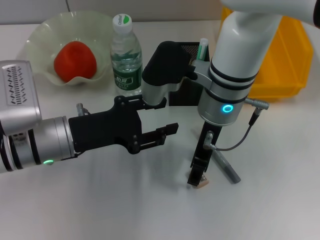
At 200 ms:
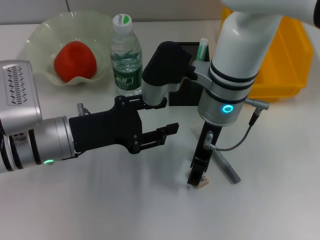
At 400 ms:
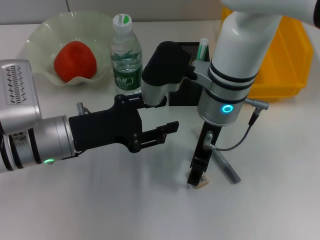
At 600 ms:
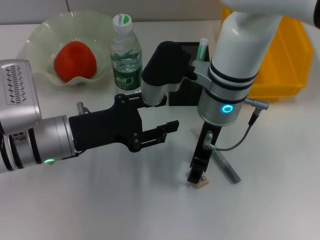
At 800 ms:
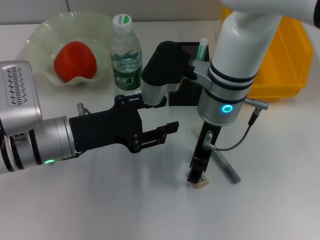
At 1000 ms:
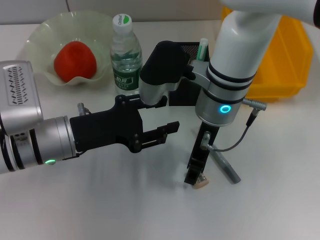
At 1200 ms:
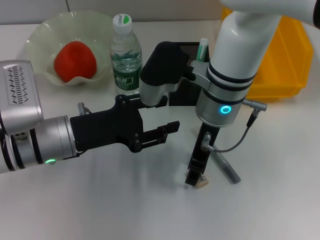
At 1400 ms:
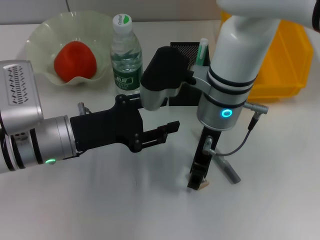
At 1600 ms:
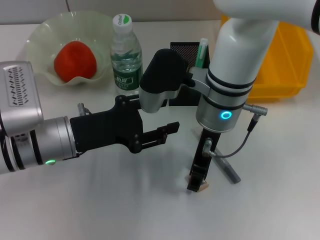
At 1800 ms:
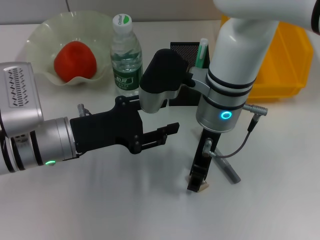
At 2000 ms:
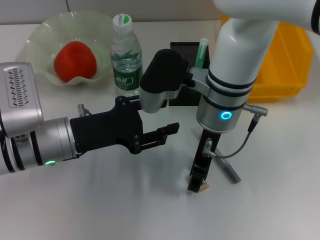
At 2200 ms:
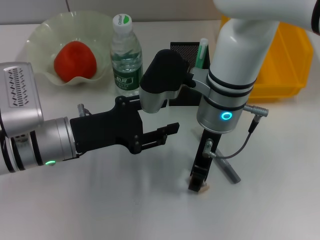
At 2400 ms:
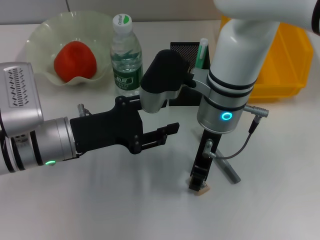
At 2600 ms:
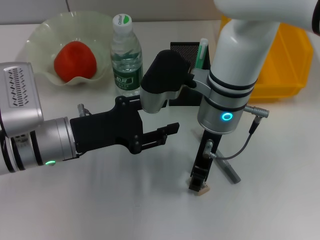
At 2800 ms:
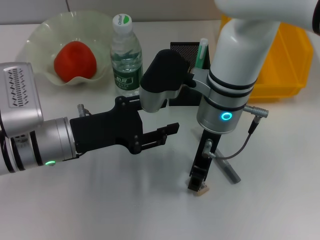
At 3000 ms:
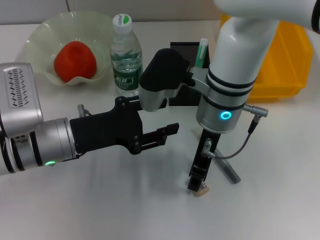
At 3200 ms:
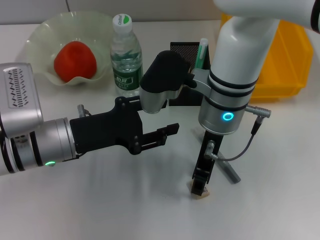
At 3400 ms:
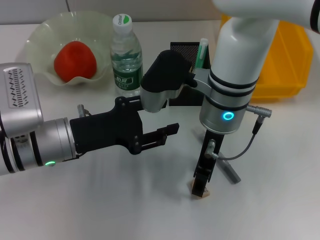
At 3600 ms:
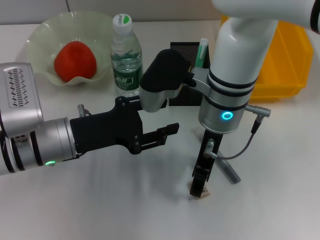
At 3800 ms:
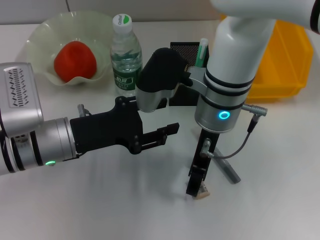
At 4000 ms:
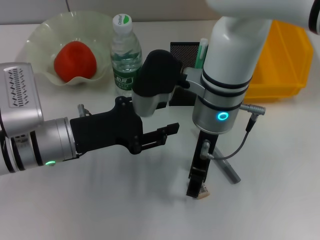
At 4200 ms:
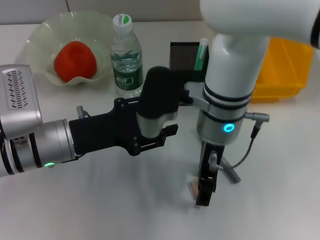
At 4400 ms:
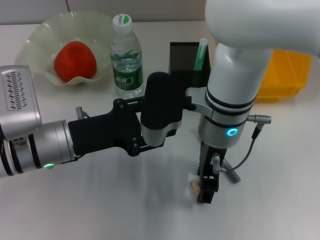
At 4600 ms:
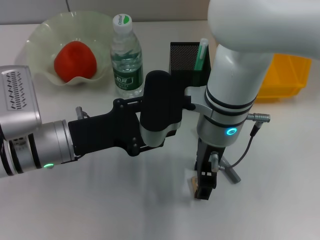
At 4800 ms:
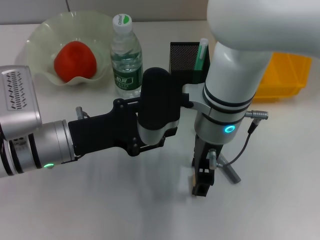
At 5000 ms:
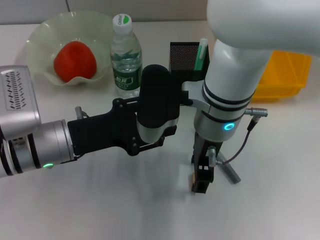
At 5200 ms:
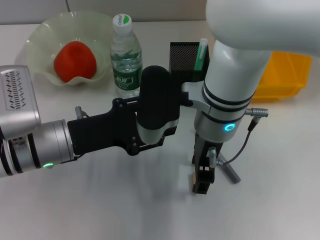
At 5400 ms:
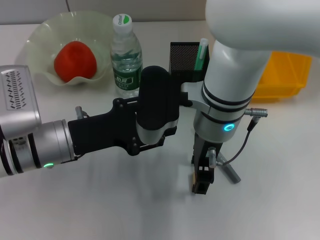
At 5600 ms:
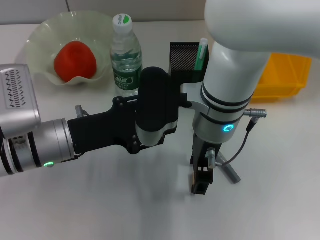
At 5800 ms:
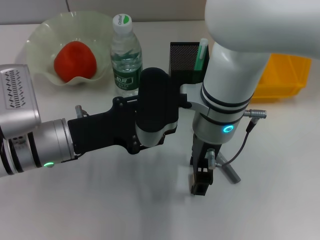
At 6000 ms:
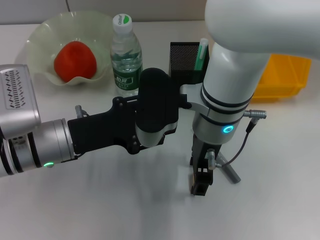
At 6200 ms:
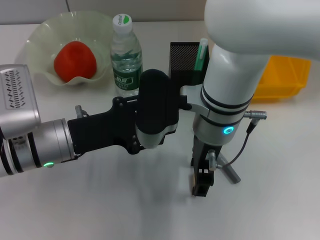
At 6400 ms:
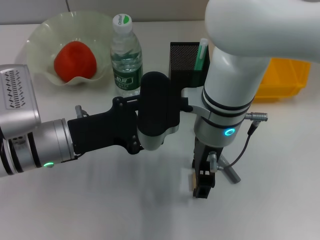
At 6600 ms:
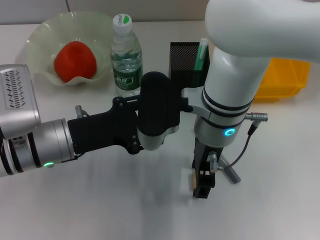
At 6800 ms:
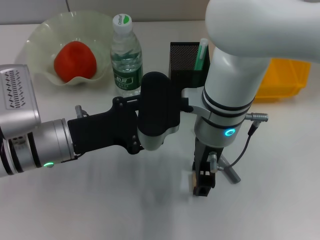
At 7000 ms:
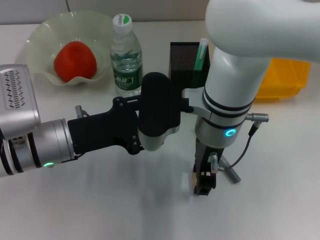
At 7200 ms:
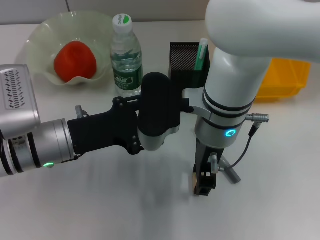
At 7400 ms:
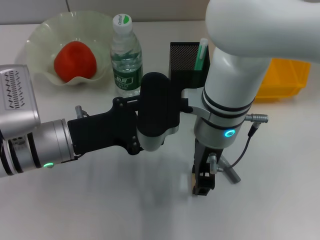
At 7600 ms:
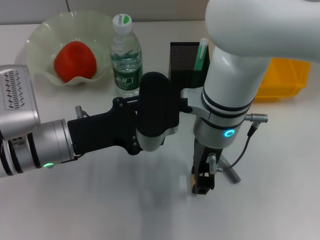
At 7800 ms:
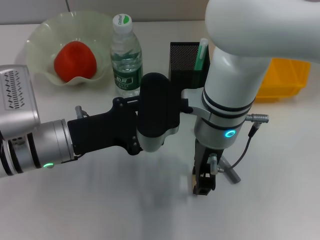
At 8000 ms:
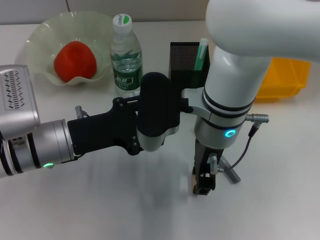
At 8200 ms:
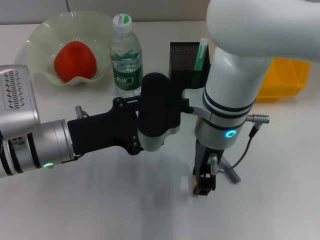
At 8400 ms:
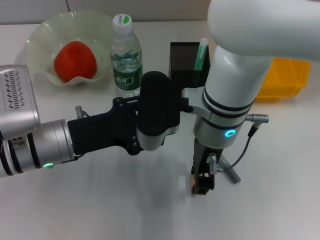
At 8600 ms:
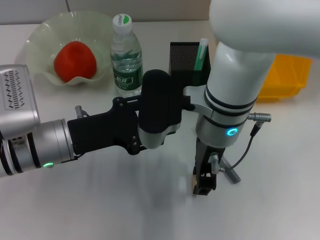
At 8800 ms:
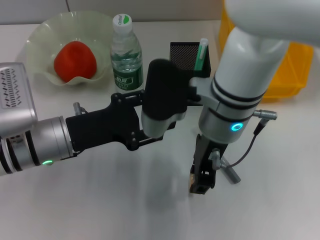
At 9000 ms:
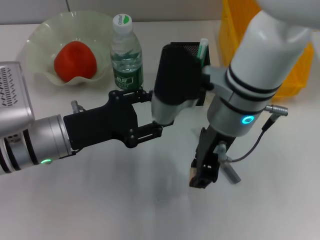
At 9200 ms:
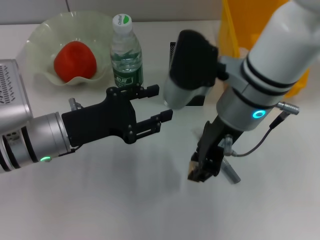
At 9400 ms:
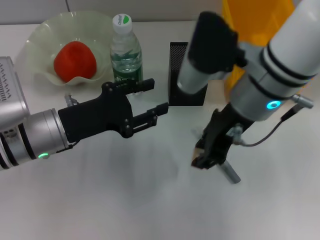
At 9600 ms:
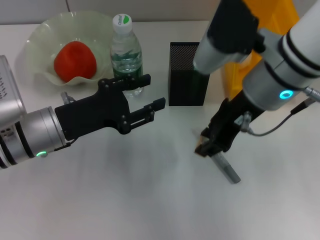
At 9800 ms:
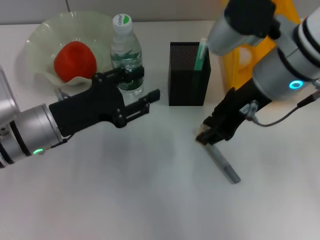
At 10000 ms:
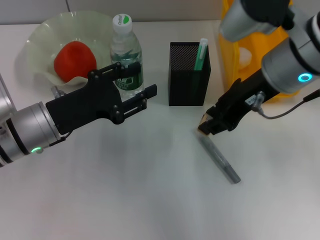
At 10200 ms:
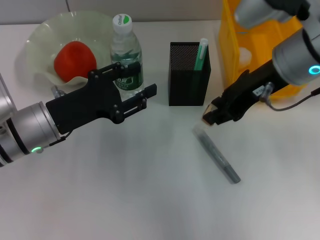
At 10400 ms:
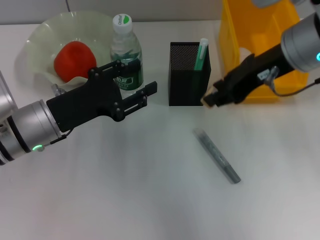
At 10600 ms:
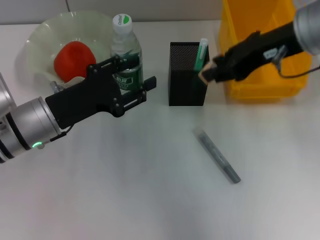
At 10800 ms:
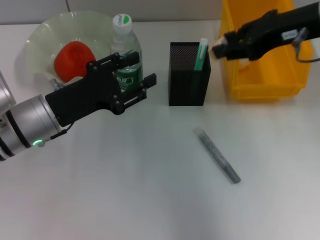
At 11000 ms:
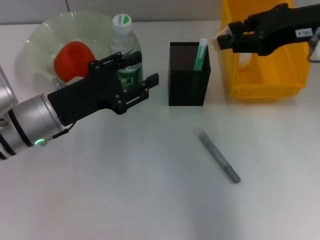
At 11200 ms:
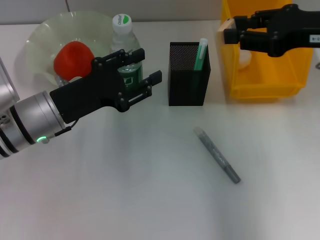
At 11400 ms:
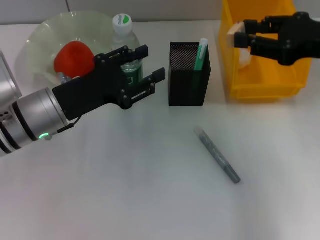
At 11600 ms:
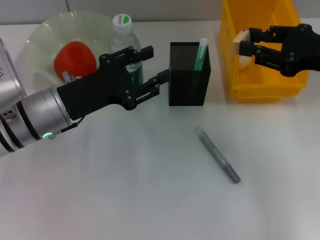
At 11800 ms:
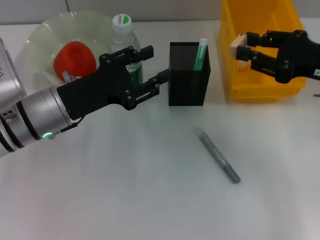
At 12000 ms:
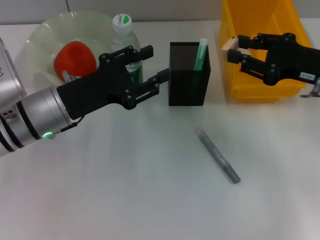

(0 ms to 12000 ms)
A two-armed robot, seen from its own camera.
Step, 0 ms - 8000 ms: Grab the eraser with the right hand.
0 ms - 3000 ms: Both grippers stay about where they are.
3000 ms - 4400 ms: The right gripper opens up.
4400 ms - 6000 ms: The grippers make only small movements.
6000 ms - 7600 ms: The right gripper closes.
9000 ms - 10400 ms: The right gripper moves to the right and upward, about 10 cm.
10400 ms - 12000 ms: The right gripper moves to the right and downward, about 15 cm.

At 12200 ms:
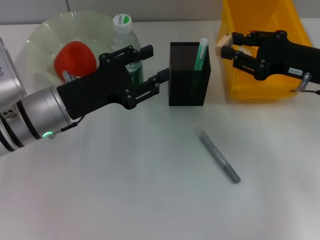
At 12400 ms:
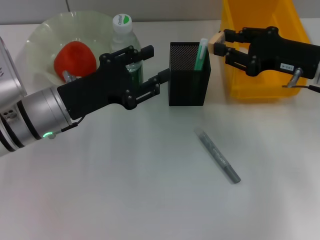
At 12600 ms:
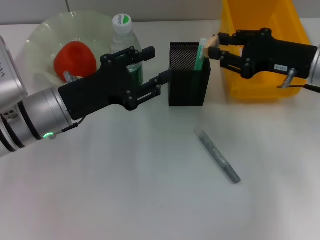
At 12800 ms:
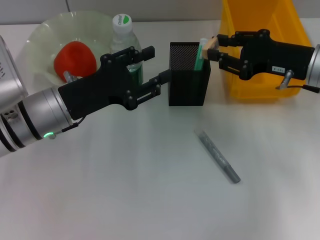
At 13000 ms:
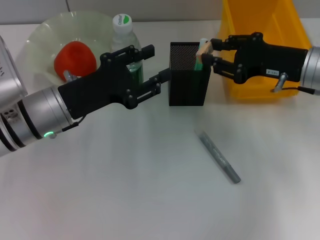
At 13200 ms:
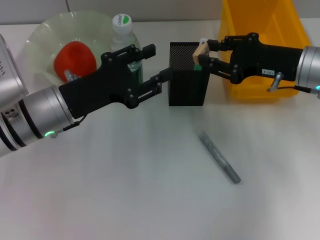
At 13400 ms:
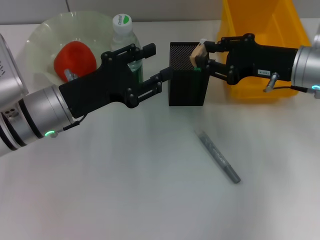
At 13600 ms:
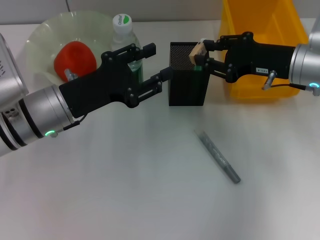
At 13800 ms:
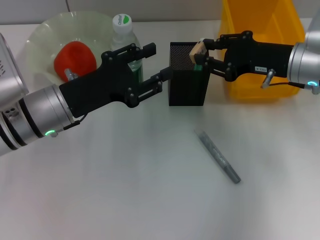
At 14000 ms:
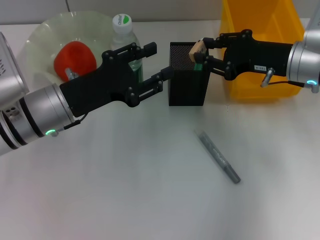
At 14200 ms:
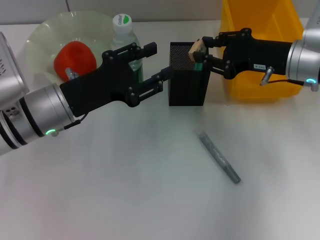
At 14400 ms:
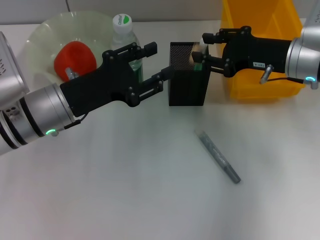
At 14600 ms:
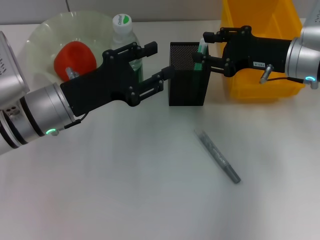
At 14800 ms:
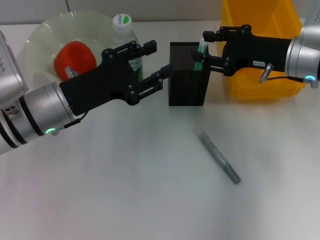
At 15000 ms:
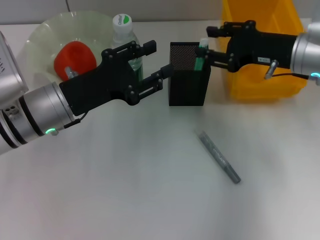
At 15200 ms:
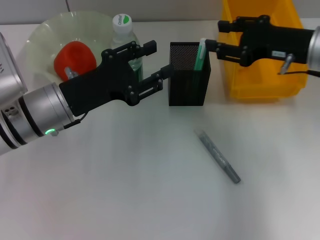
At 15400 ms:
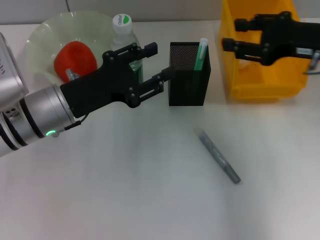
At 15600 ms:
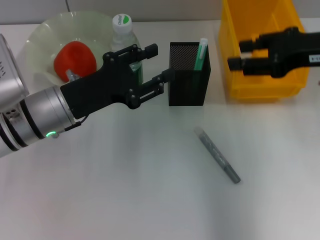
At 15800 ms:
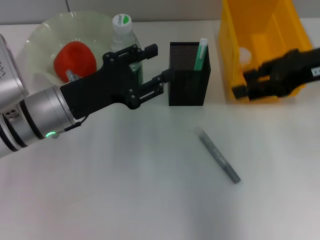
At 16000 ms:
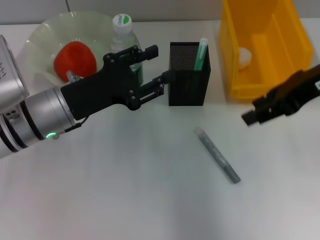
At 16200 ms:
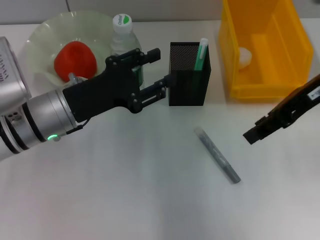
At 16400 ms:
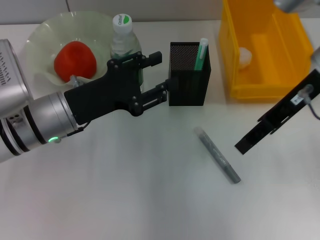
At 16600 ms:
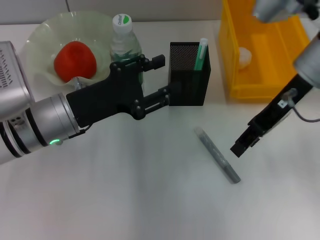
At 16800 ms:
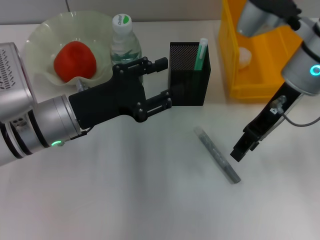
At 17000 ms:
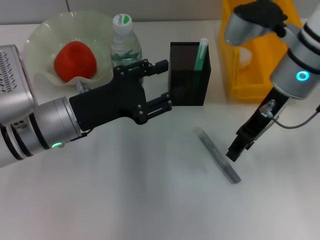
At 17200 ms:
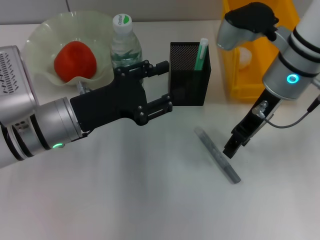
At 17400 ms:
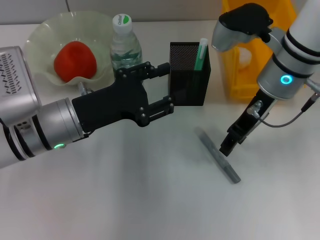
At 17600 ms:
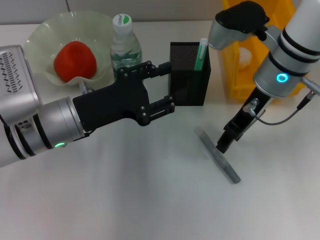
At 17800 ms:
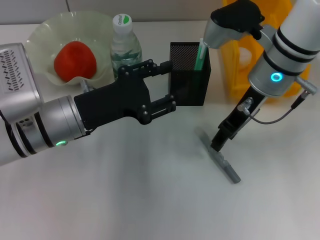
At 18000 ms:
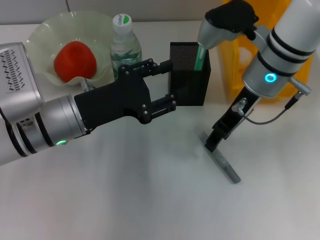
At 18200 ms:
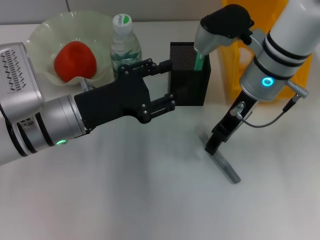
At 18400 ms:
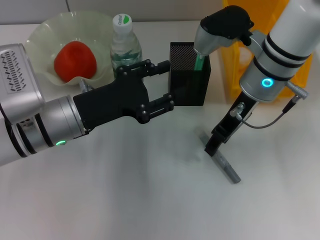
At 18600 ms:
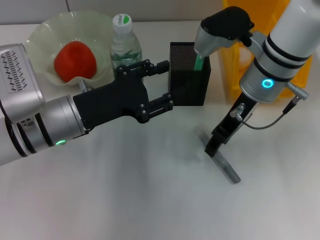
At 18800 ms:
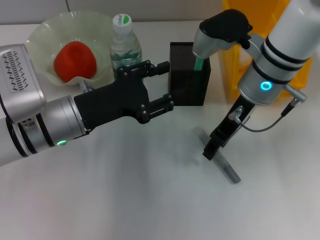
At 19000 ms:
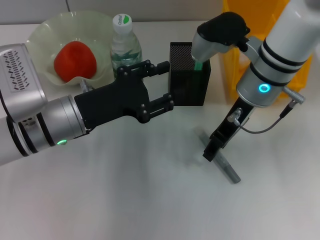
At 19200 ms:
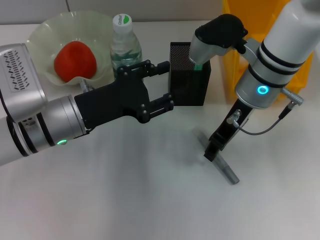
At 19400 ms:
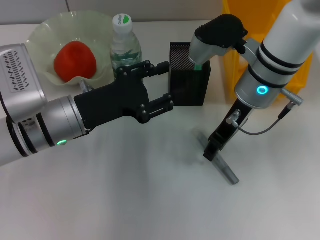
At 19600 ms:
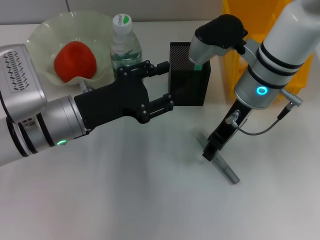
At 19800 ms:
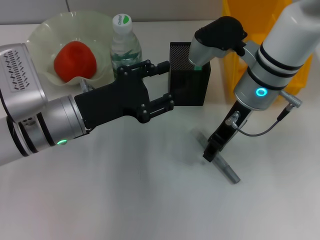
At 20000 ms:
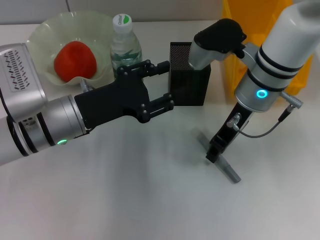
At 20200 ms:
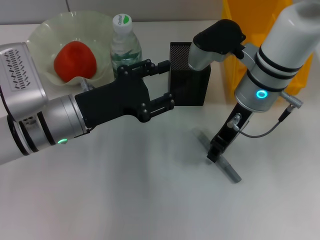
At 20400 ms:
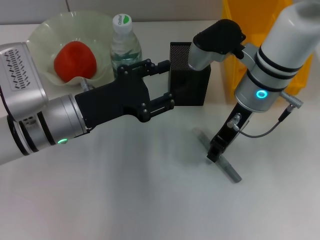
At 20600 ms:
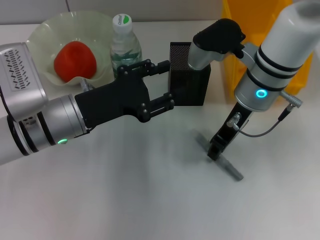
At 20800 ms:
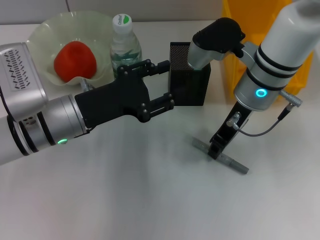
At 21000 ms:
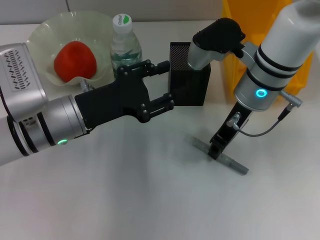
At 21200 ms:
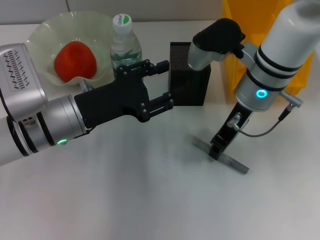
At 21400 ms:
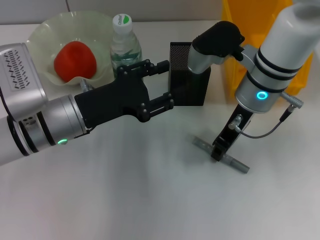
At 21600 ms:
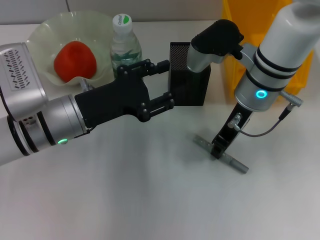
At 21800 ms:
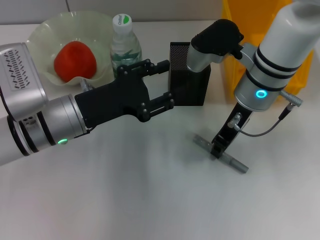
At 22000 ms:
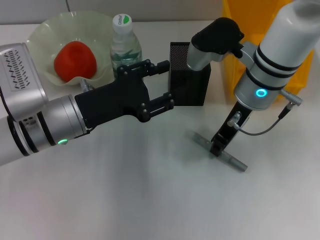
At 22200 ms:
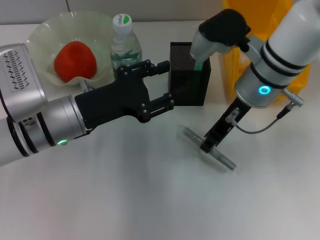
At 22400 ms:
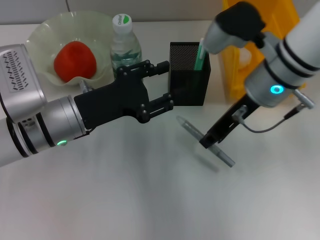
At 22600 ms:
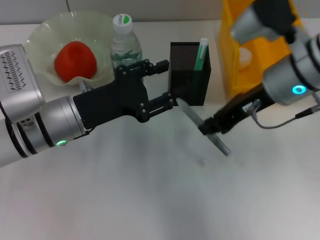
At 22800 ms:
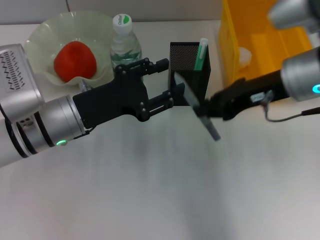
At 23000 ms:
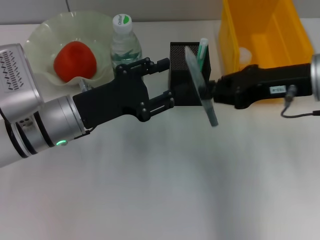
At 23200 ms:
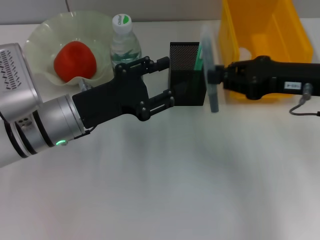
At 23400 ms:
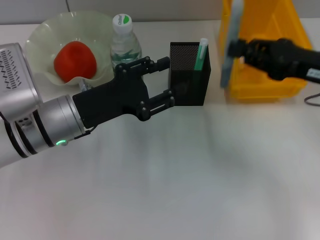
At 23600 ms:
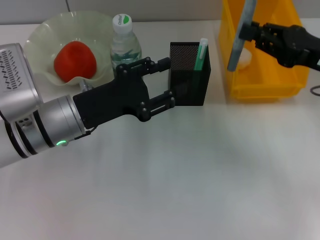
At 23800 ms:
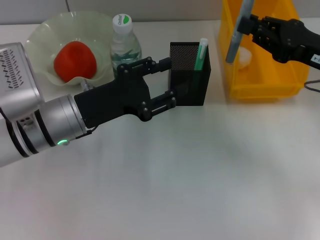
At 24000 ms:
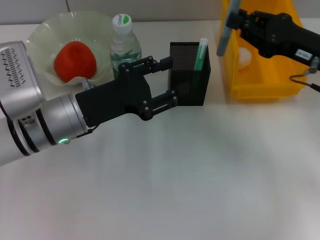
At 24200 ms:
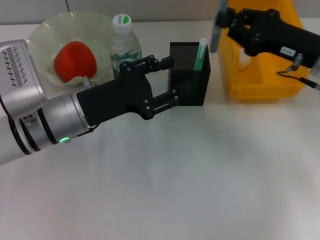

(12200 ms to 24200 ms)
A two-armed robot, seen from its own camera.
Step, 12200 ms - 14400 ms: Put the eraser into the pen holder with the right hand.
Step, 14800 ms - 21800 ms: Grab the gray glue with the right hand.
12200 ms - 15200 ms: There are only small adjustments of the grippers.
15200 ms - 16600 ms: The right gripper moves some 5 cm.
16600 ms - 18200 ms: The right gripper travels to the left by roughly 5 cm.
18200 ms - 19800 ms: The grippers move only a little.
19800 ms - 21200 ms: Both grippers stay about where they are.
21200 ms - 22600 ms: The right gripper changes place by approximately 5 cm.
22600 ms - 24200 ms: The right gripper travels to the right by approximately 10 cm.
